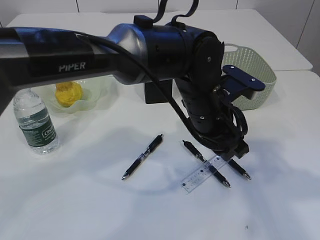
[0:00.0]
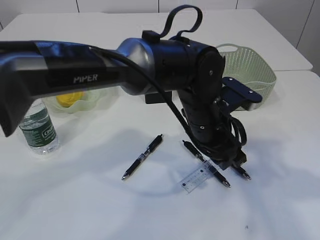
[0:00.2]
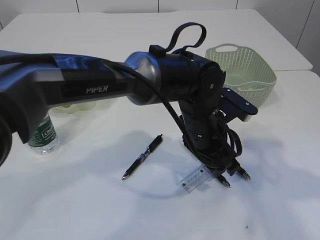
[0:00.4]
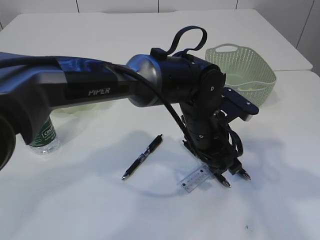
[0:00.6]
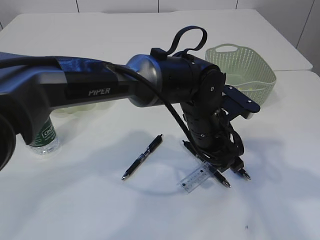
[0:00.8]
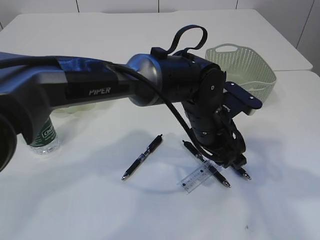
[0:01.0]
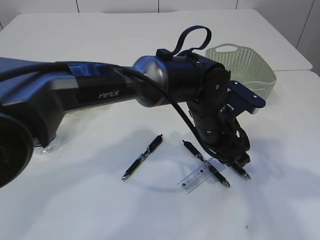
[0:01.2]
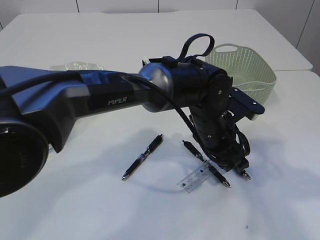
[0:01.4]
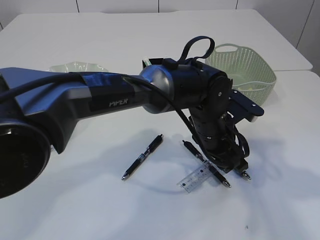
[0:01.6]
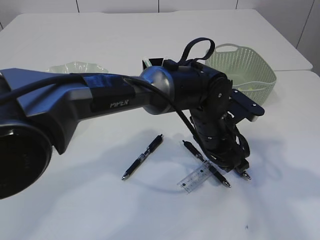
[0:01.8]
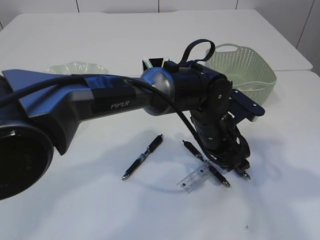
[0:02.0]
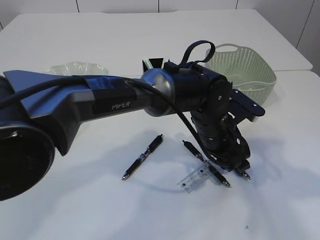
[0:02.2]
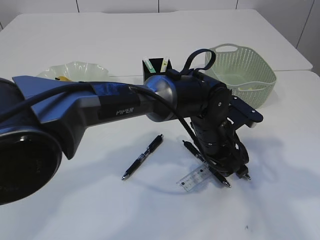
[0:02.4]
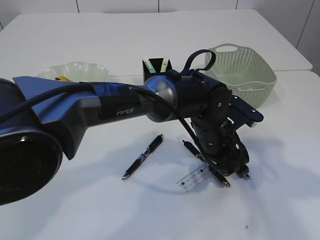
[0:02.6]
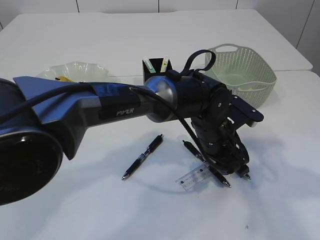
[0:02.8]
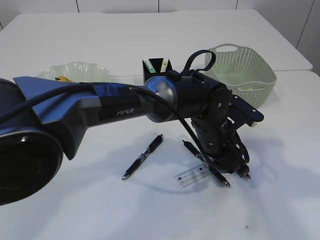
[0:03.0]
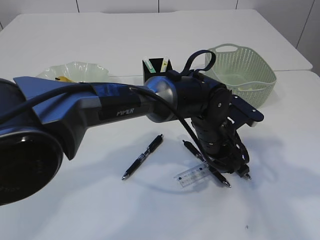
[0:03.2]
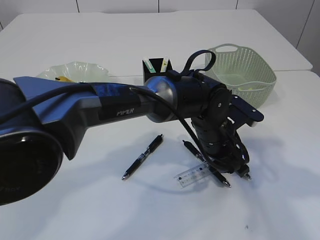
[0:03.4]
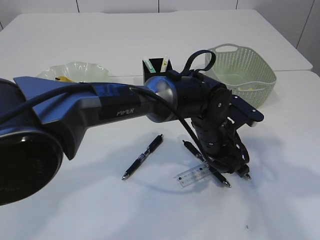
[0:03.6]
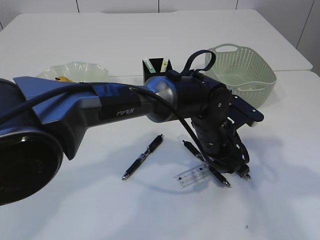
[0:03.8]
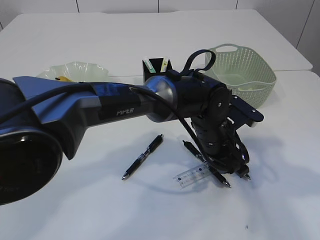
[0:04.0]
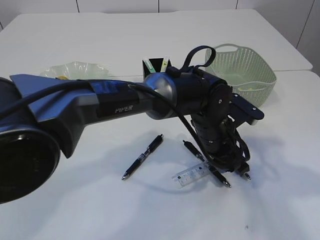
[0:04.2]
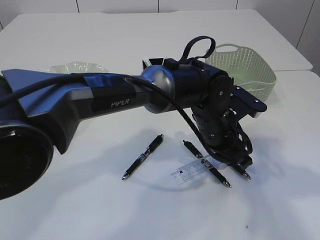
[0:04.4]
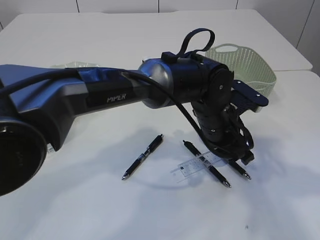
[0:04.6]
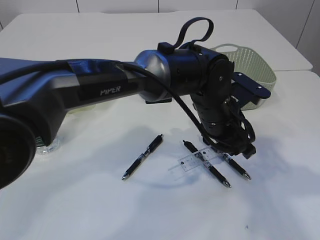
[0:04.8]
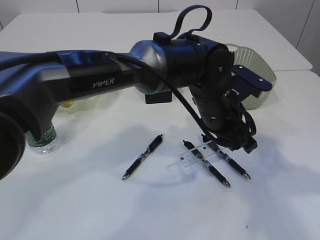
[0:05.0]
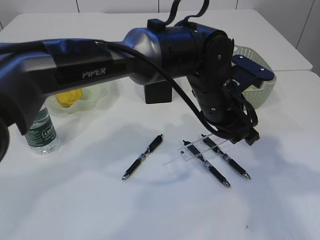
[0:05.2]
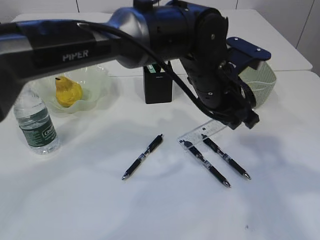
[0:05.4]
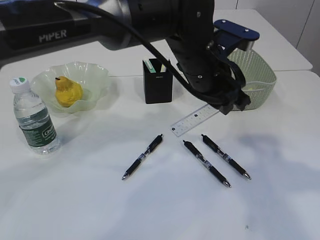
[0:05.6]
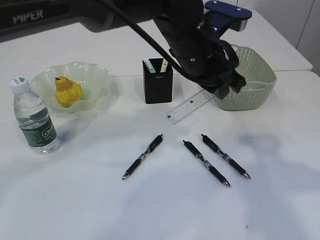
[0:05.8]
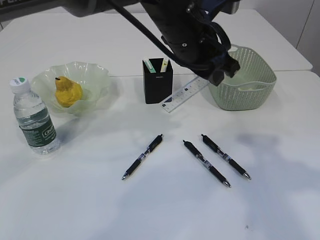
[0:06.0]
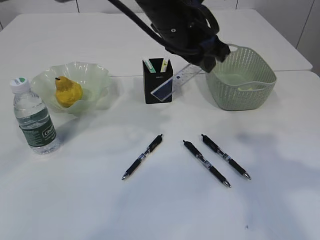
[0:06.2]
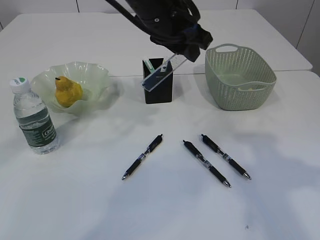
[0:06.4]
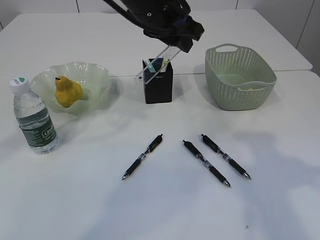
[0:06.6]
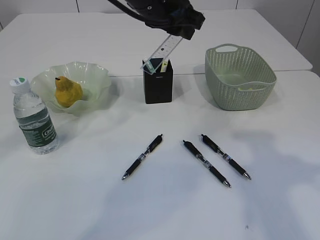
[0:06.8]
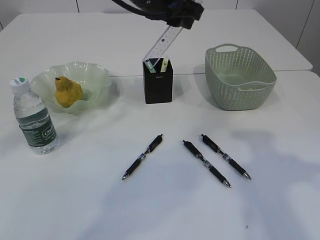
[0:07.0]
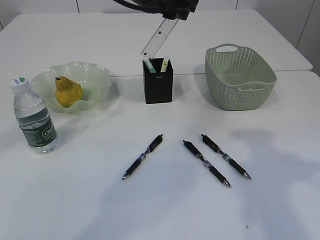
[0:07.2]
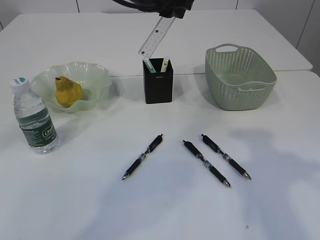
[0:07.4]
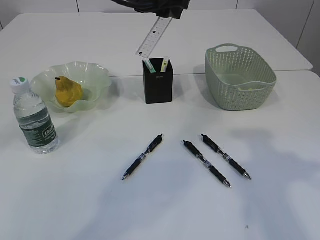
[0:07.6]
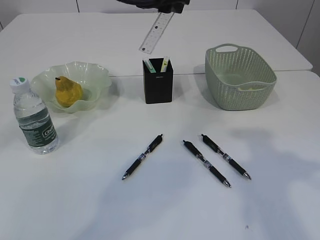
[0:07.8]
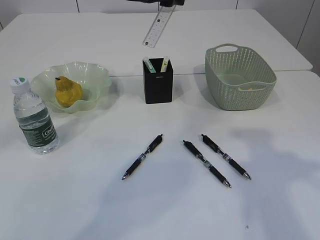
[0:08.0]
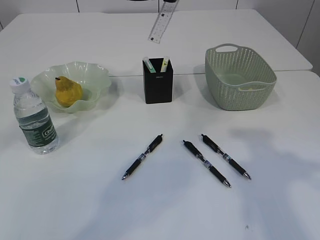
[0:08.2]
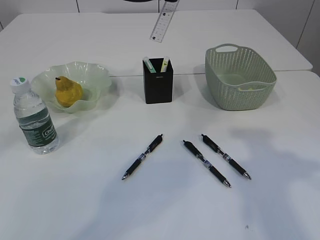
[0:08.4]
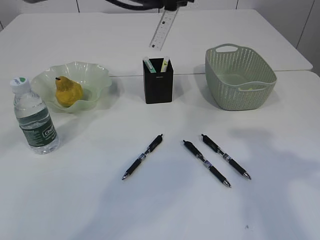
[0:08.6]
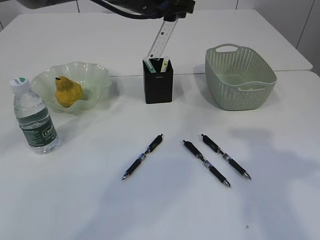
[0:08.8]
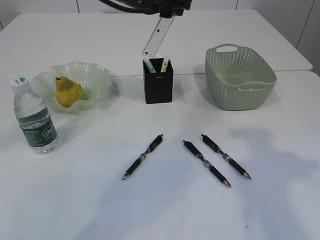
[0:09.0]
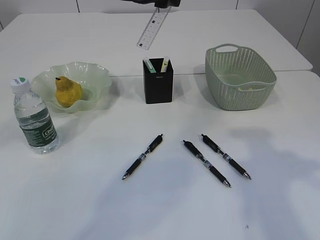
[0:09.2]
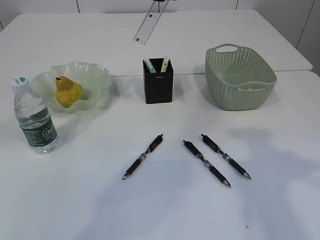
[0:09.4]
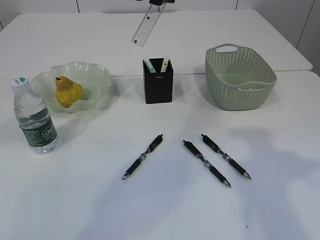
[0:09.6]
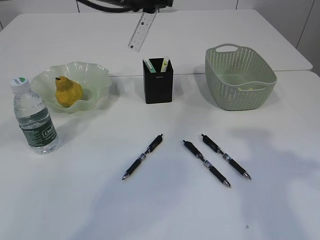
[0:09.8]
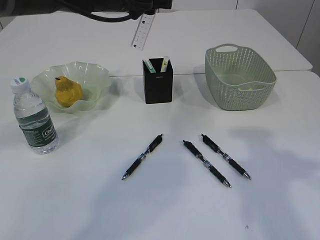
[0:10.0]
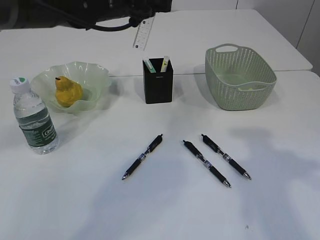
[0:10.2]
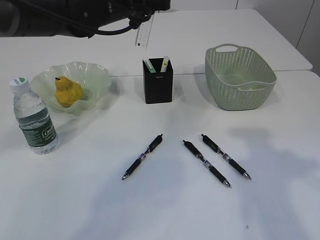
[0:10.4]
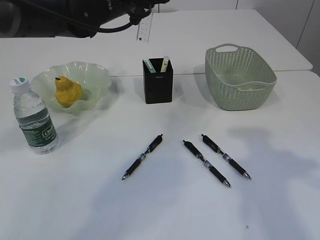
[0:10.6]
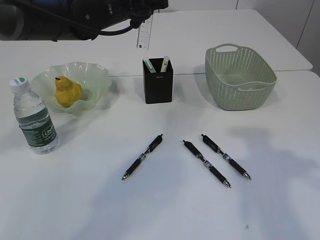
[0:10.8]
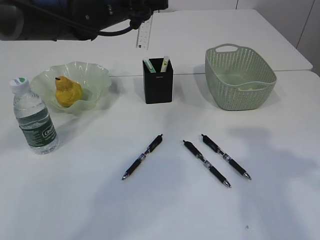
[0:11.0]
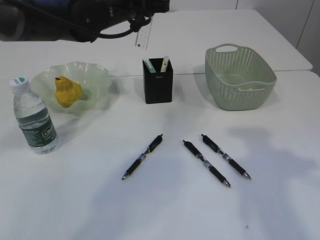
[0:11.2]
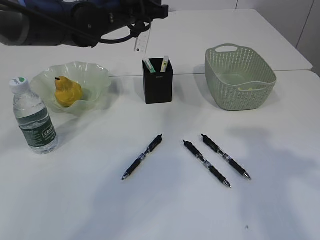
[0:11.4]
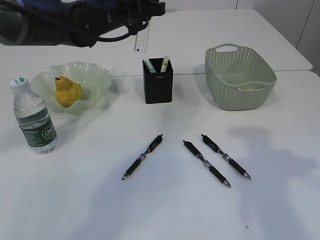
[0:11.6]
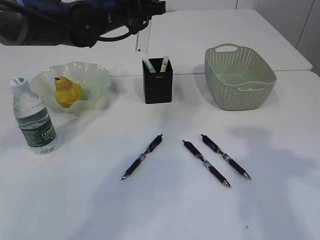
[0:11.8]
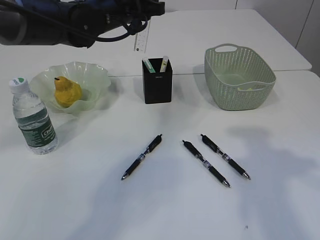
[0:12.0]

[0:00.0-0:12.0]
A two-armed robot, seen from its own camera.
Step, 0:00.0 to 0:05.6: pick up the ruler.
0:00.0 to 0:01.6: The left gripper is displaced downward by about 5 cm.
0:01.6 to 0:04.4: The grippers stay close to where they were, moving slightly.
0:04.4 to 0:06.0: The left gripper goes about 15 cm upward.
0:06.0 to 0:07.6: The left gripper moves forward and to the left, roughly 10 cm.
0:10.4 to 0:12.0: There are only small adjustments of the grippers.

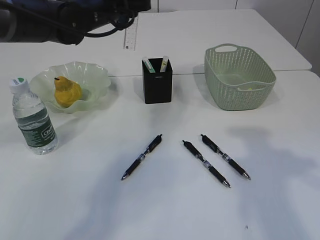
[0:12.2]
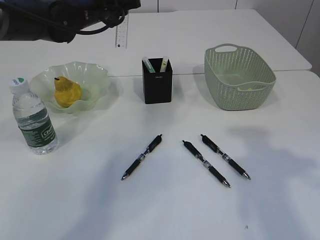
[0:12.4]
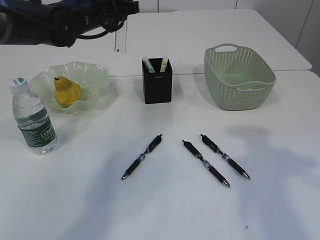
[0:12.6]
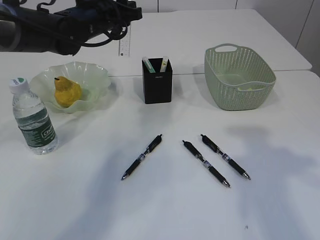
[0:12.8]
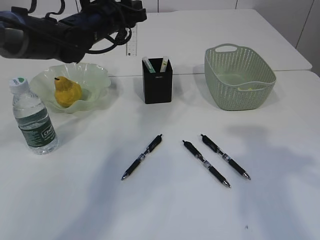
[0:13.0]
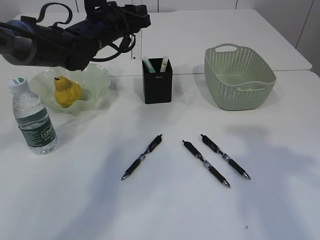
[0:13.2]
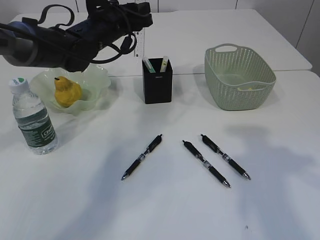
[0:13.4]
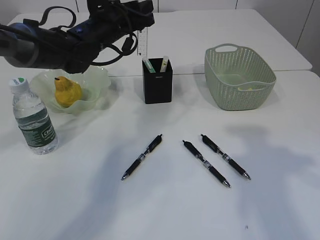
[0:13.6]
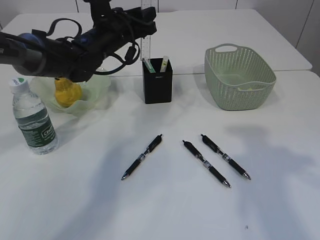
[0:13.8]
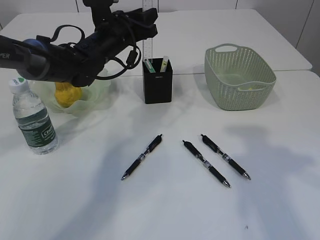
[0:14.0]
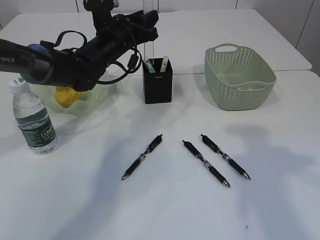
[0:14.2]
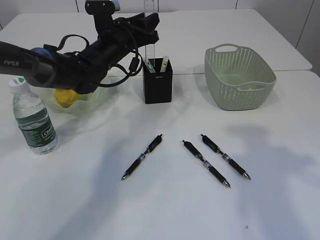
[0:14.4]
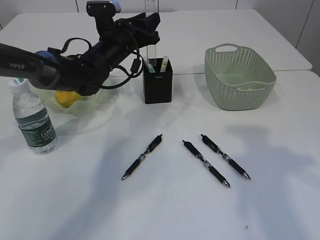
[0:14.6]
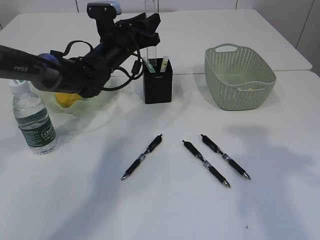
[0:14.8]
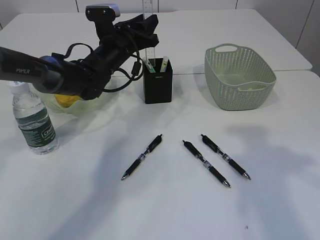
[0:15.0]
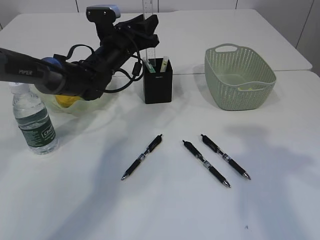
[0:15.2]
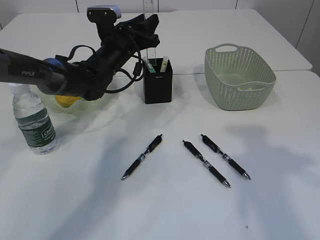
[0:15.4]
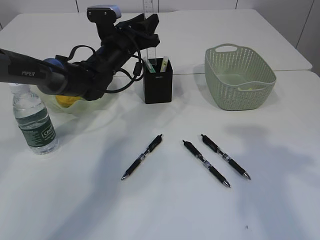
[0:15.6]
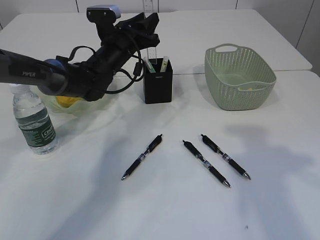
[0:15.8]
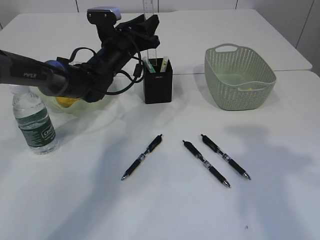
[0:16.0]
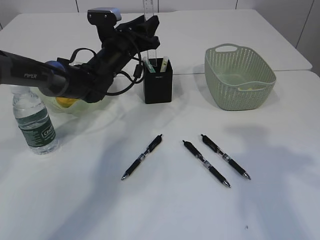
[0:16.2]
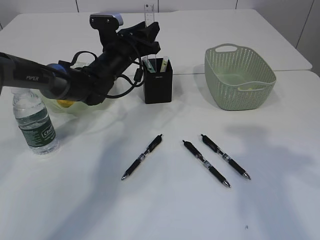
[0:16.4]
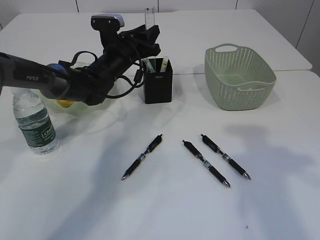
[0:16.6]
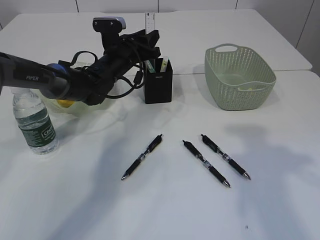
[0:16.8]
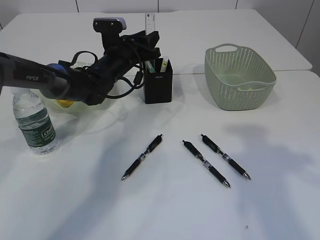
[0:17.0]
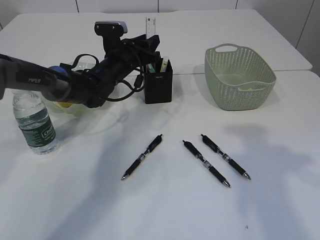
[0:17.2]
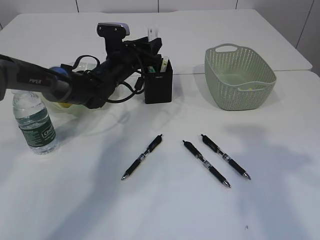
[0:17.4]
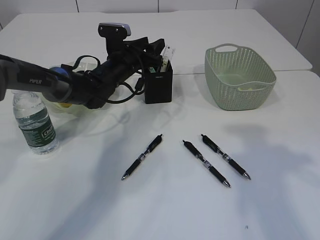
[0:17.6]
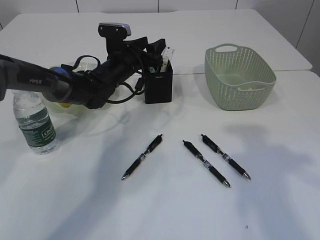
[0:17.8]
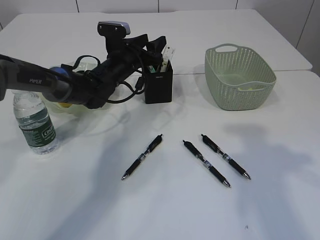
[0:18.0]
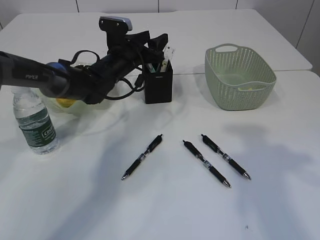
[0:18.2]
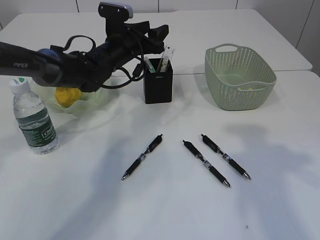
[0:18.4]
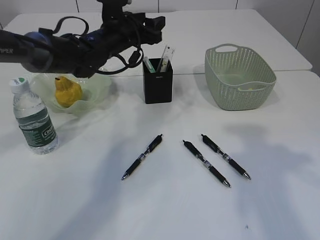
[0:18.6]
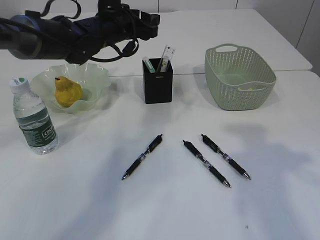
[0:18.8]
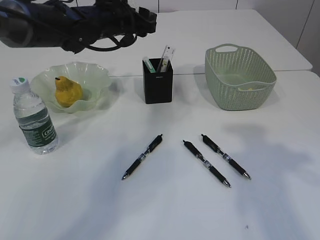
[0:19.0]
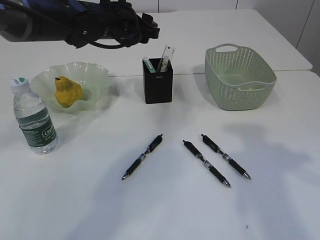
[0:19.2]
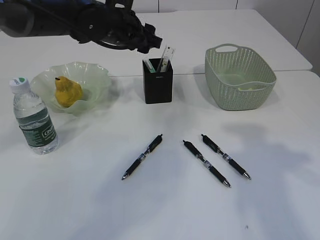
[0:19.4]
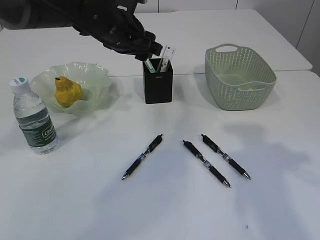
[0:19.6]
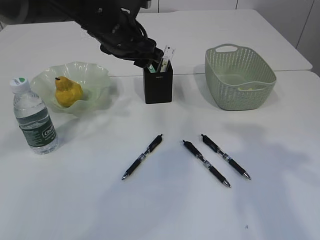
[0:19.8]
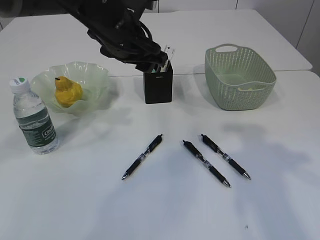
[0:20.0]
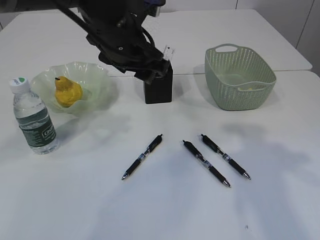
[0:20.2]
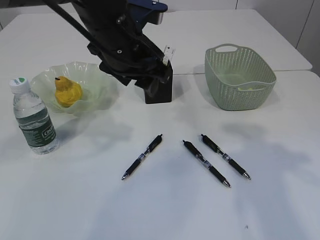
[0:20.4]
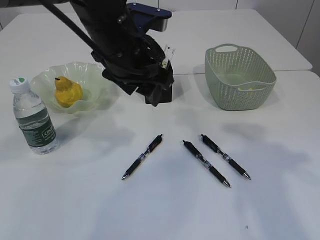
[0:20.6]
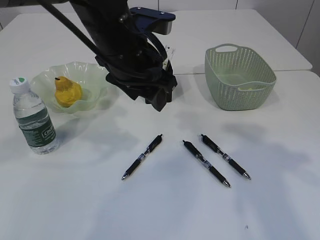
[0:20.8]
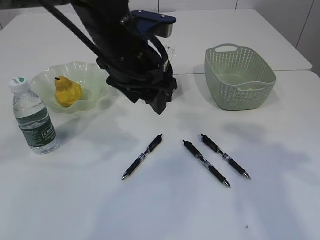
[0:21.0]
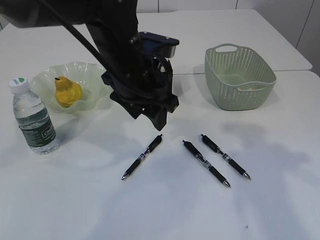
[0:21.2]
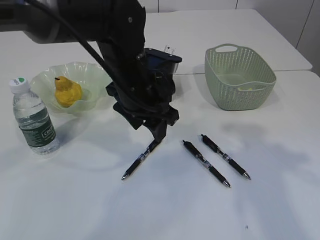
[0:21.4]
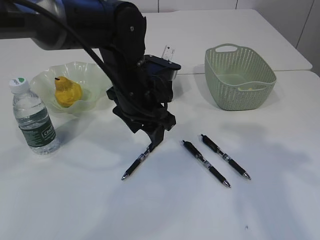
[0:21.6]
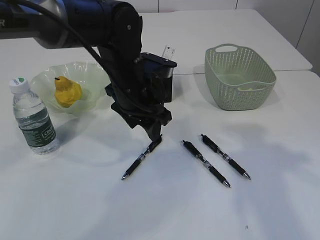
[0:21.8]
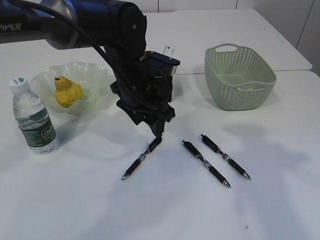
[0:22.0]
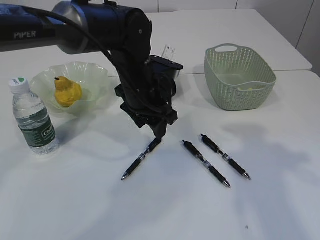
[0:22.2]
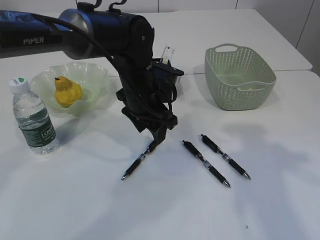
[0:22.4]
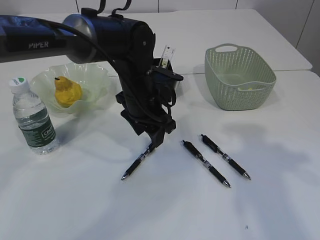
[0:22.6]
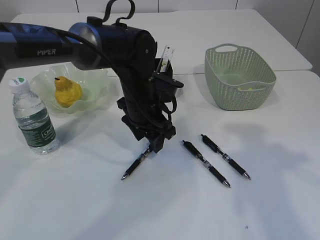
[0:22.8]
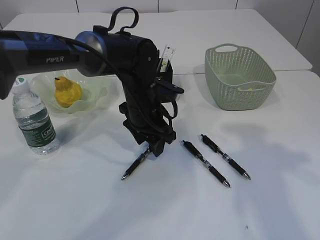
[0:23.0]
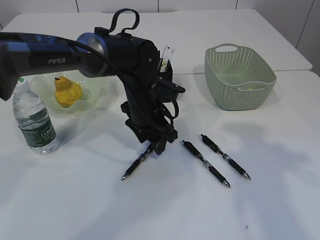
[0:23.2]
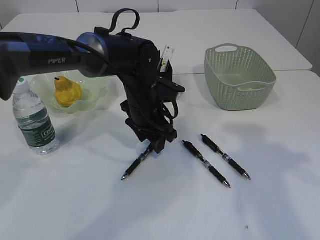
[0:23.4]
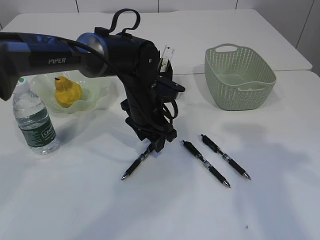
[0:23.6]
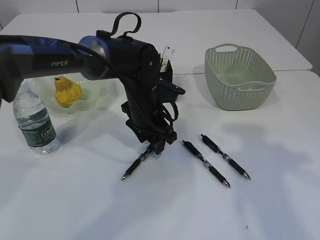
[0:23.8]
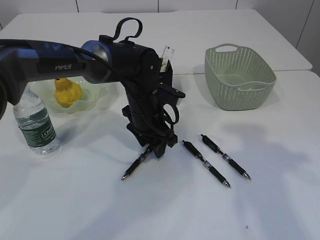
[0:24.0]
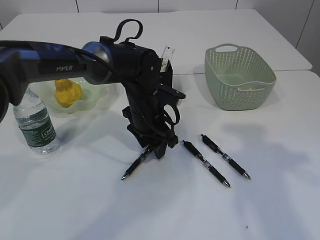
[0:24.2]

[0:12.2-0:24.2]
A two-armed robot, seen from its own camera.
Step, 0:12.2 to 0:18.4: Place the ruler into the pen holder.
0:12.2 to 0:13.8: The left gripper heads downward, covering roughly 5 cm.
0:13.8 to 0:16.6: There are only small adjustments of the grippers.
0:16.6 to 0:18.2: The left gripper opens.
0:18.2 to 0:19.8: The left gripper is displaced upward and backward by roughly 15 cm.
0:19.8 to 0:21.2: The left gripper goes approximately 5 cm backward.
0:21.2 to 0:22.6: The left gripper shifts about 5 cm downward.
0:22.6 to 0:24.2: The grippers make only small movements.
